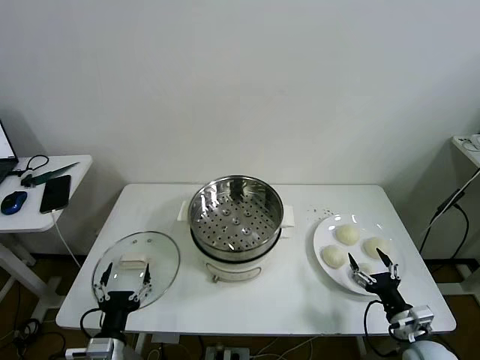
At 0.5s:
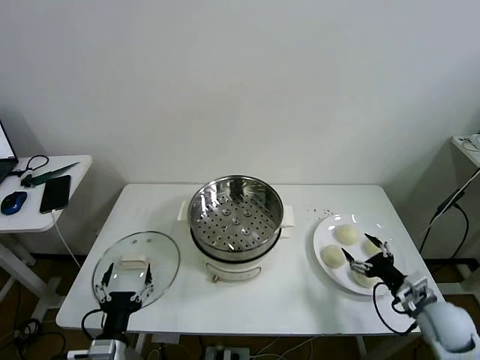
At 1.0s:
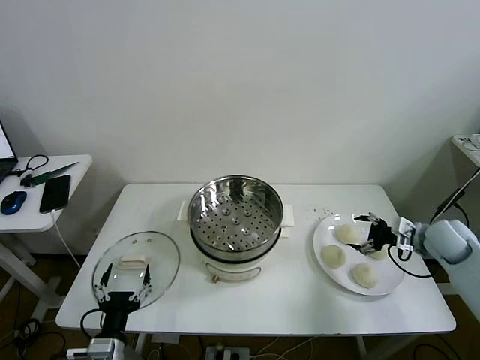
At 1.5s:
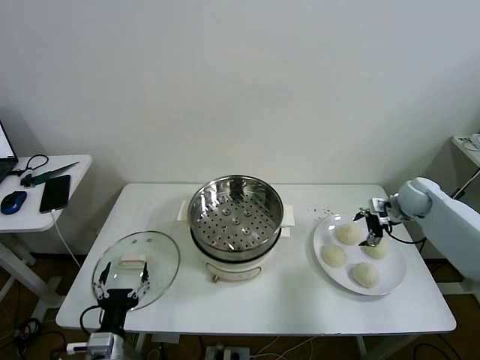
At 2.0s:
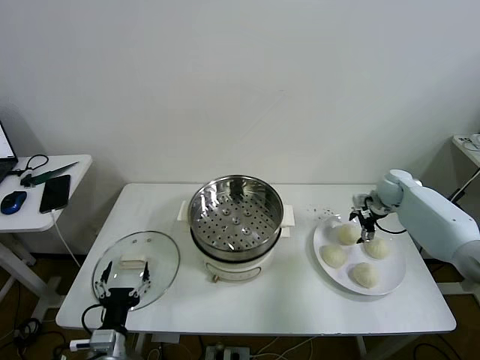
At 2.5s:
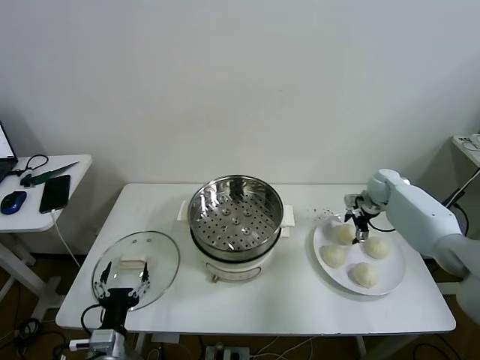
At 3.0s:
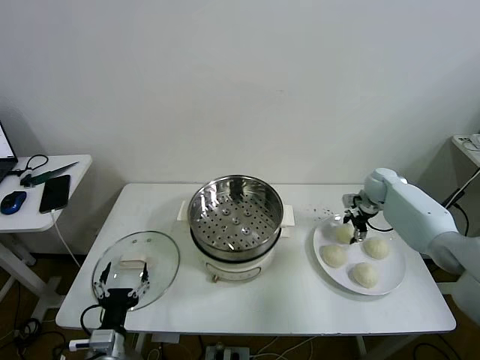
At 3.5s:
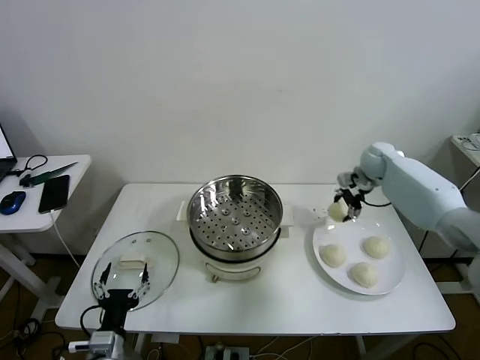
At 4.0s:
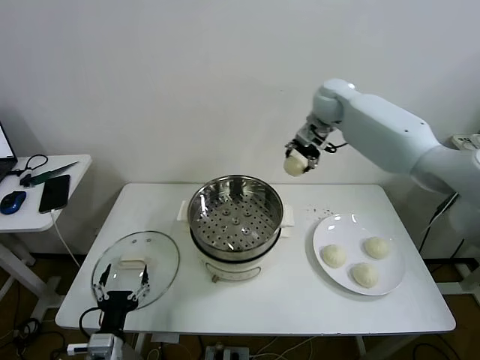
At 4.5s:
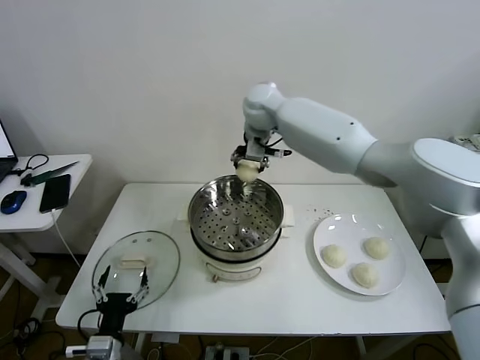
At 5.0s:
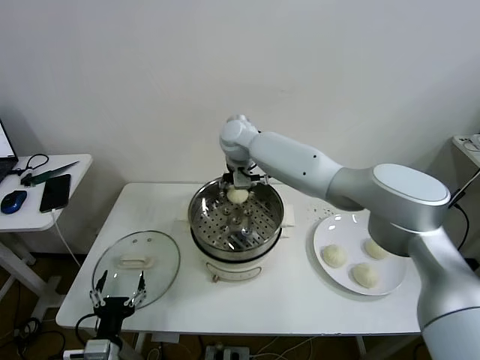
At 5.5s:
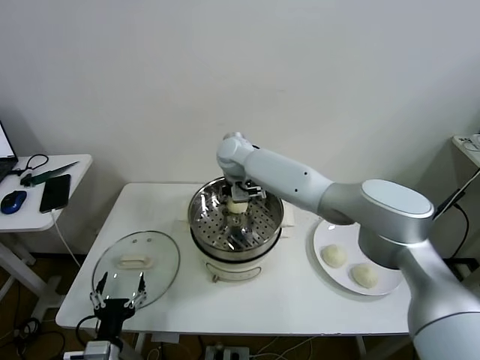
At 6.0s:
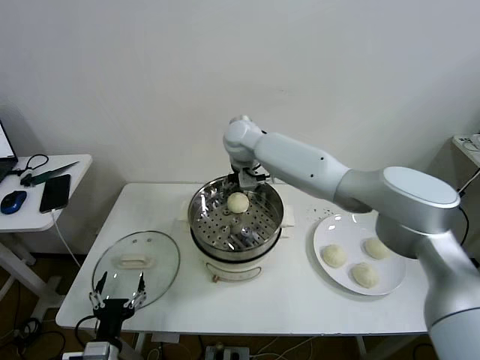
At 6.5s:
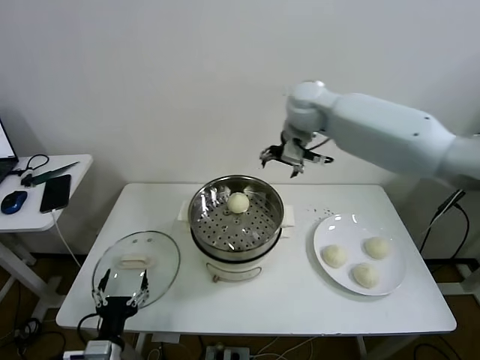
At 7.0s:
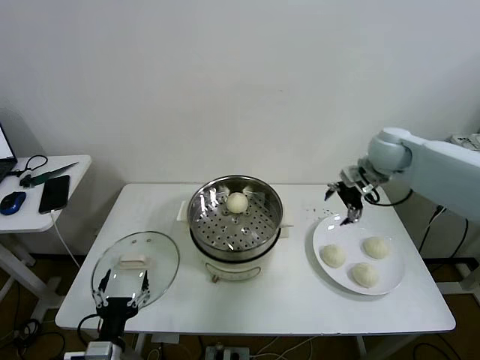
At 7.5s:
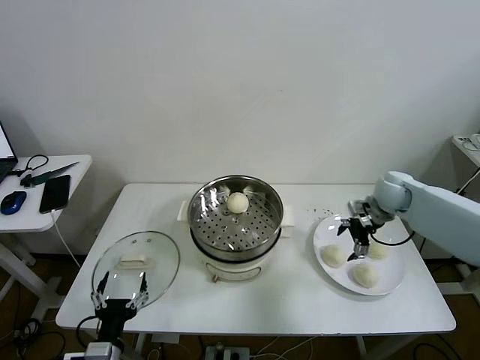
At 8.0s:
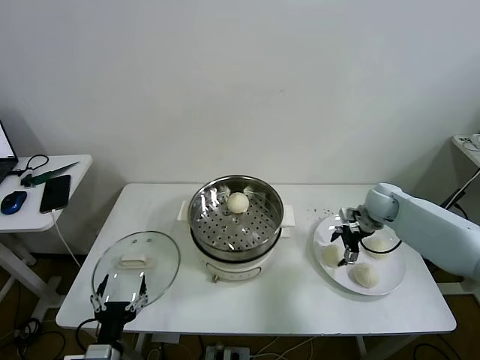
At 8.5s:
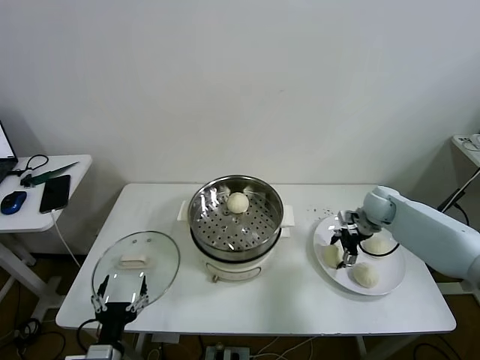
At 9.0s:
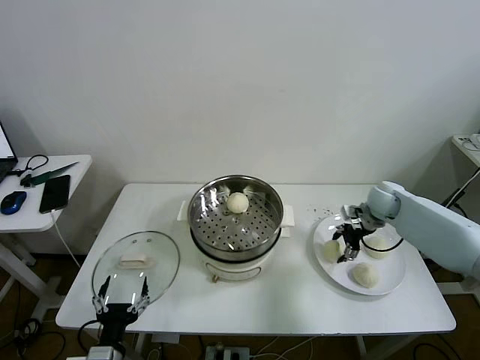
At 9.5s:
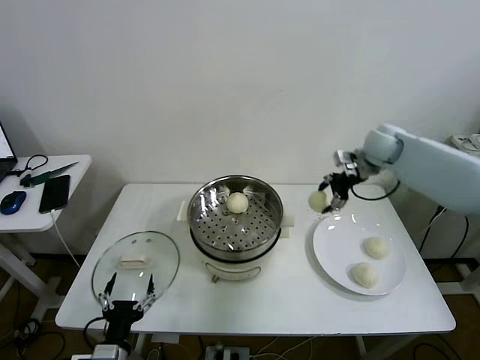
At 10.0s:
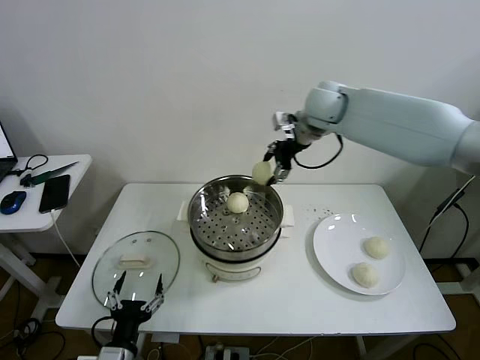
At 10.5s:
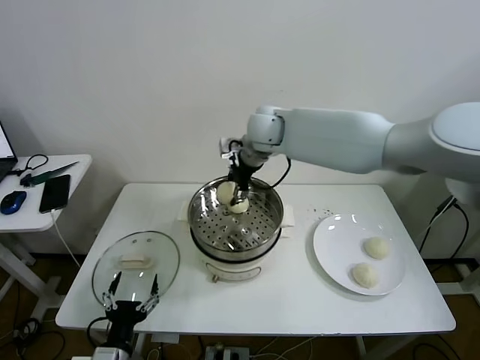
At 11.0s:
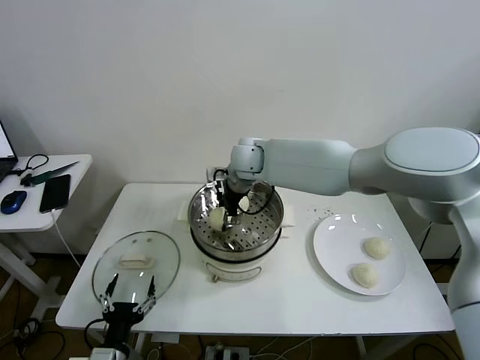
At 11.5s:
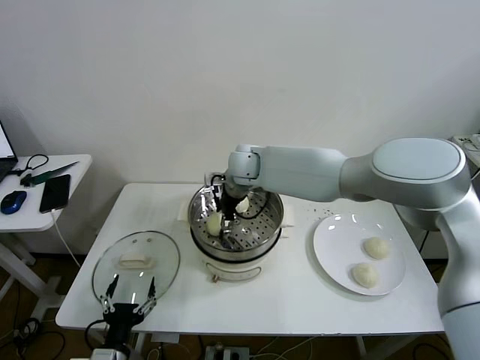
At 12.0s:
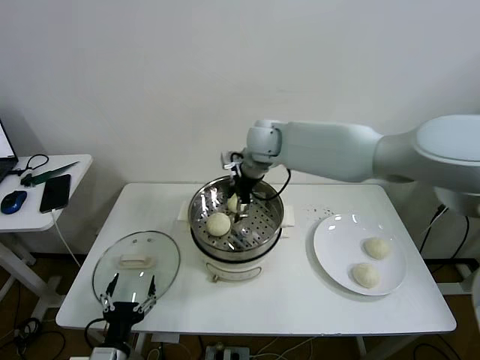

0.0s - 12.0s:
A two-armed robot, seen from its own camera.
Task of the whole recording: take steamed baozi put them in steamer then cover it.
Step, 0.0s - 2.5s: Grasp the baozi in the plate with right gripper.
Step, 3.5s - 5.5s: Place the baozi on the steamer with right gripper.
Step, 6.0s - 8.5s: Grasp the baozi in the plate with right gripper.
Step, 9.0s - 11.5s: Place the baozi on the steamer with right gripper.
2.0s - 4.0s: The right gripper moves to the left and upward, roughly 35 cm, and closes its fingers.
4.0s - 6.0s: The right gripper heads to the left and downward, covering about 15 cm, and opens its fingers.
6.0s - 8.0s: The right gripper travels to the right and downward by about 40 cm.
8.0s - 10.0s: The right gripper heads upward and to the left, covering approximately 35 cm, and closes up.
10.0s - 12.0s: The right gripper goes about 10 cm to the left and downward, and opens.

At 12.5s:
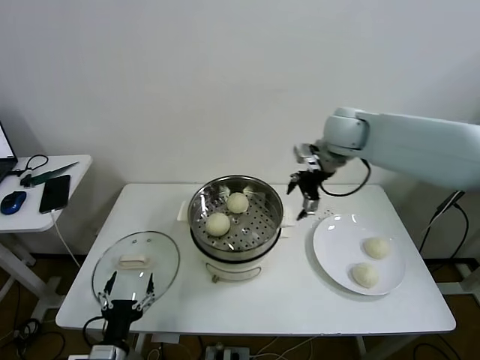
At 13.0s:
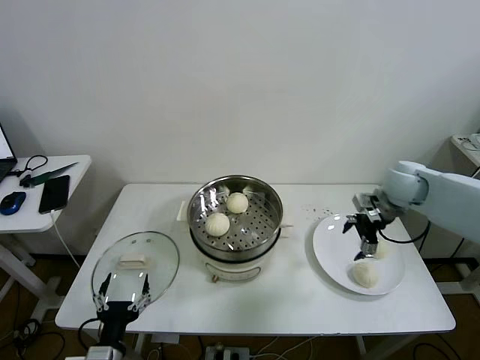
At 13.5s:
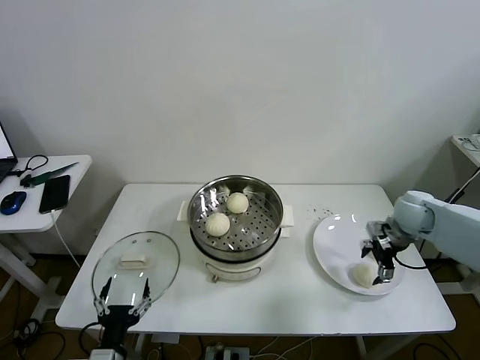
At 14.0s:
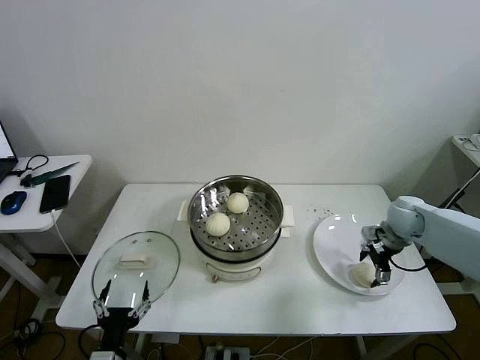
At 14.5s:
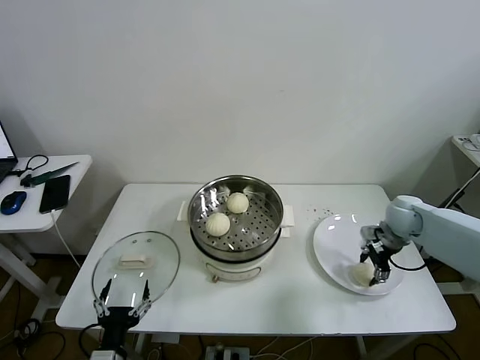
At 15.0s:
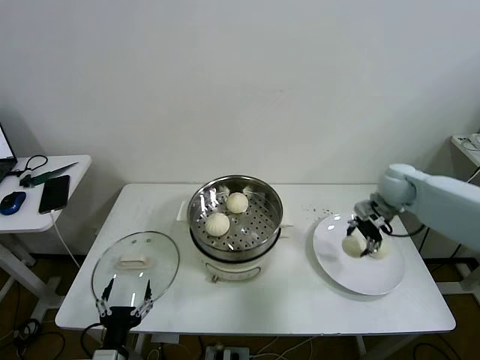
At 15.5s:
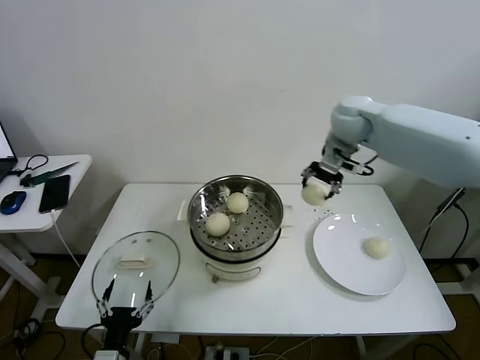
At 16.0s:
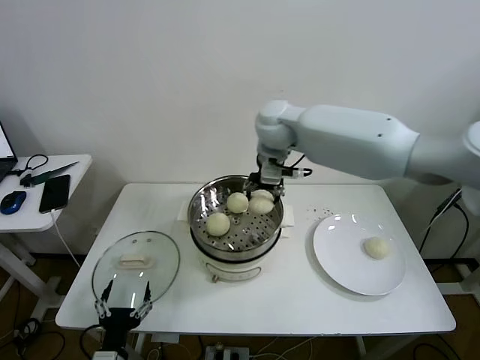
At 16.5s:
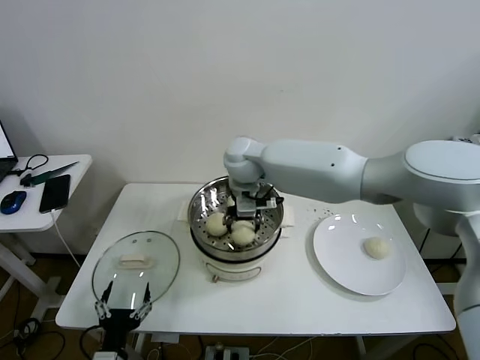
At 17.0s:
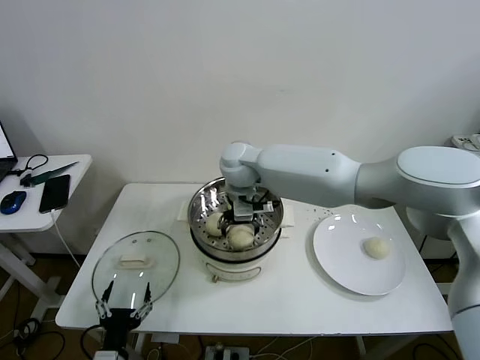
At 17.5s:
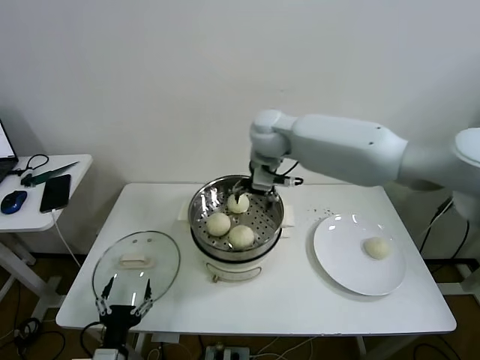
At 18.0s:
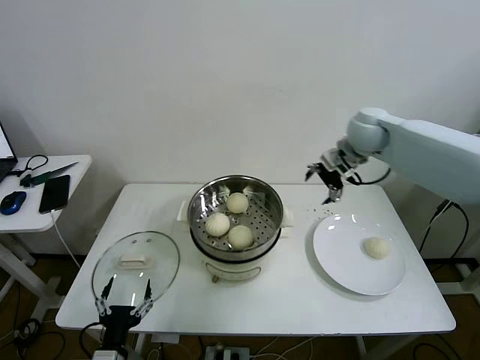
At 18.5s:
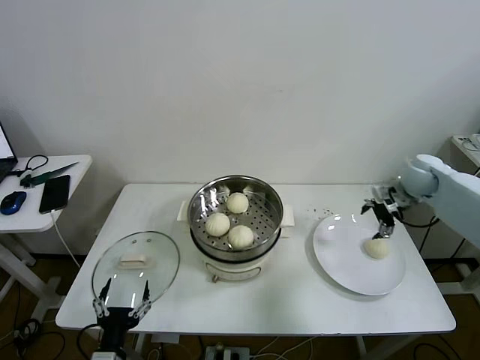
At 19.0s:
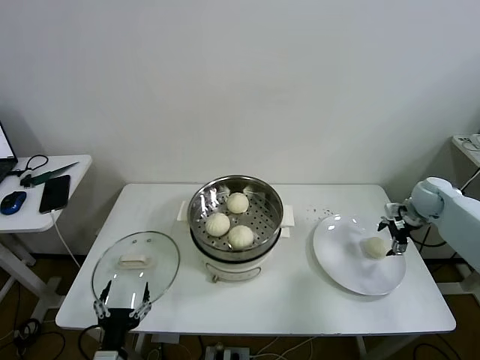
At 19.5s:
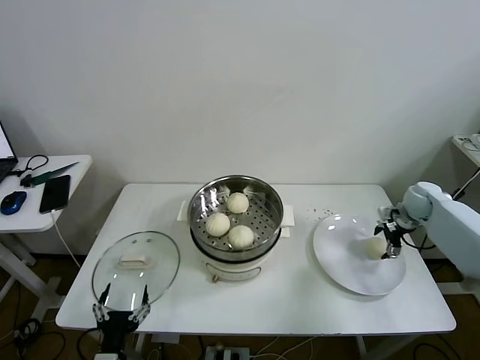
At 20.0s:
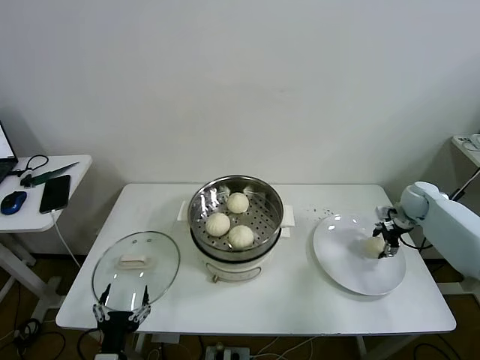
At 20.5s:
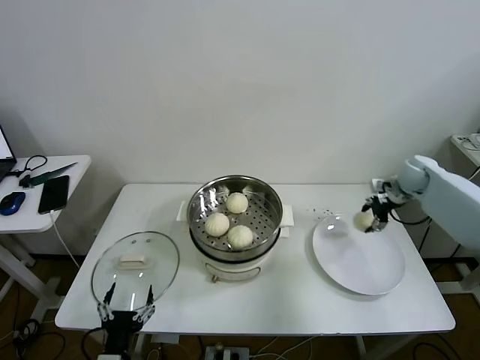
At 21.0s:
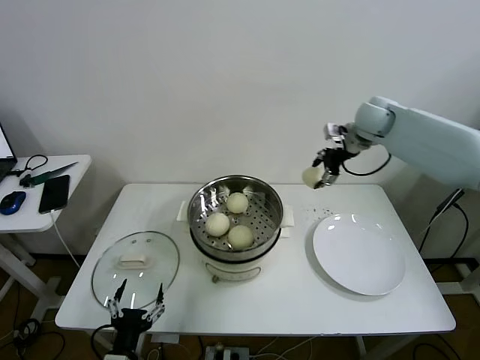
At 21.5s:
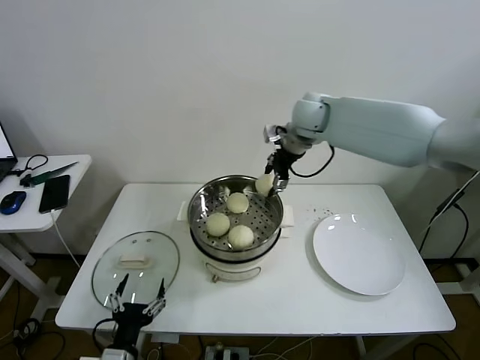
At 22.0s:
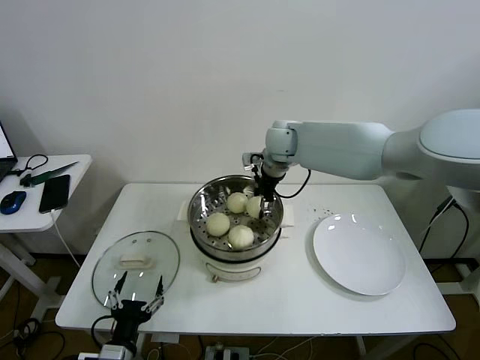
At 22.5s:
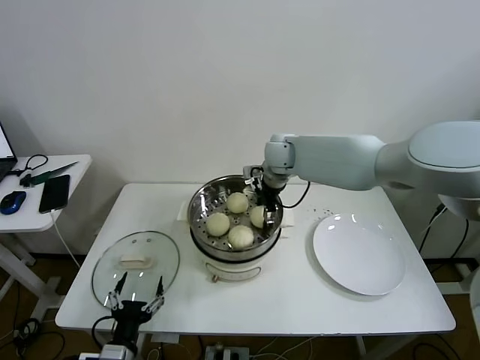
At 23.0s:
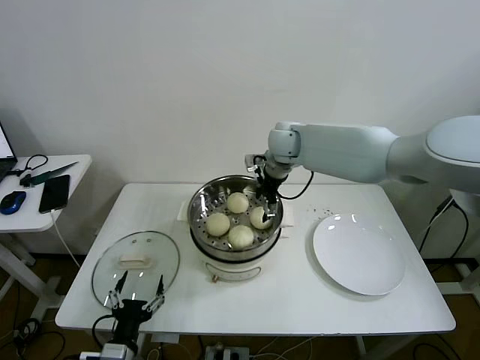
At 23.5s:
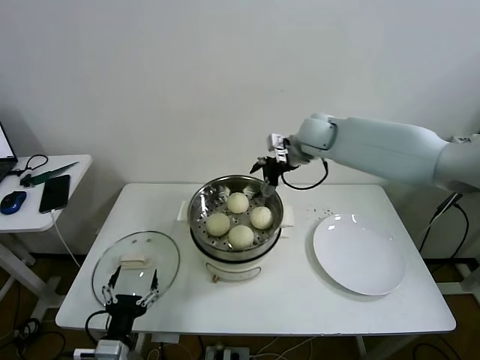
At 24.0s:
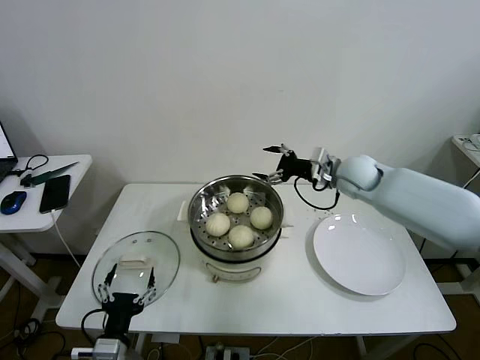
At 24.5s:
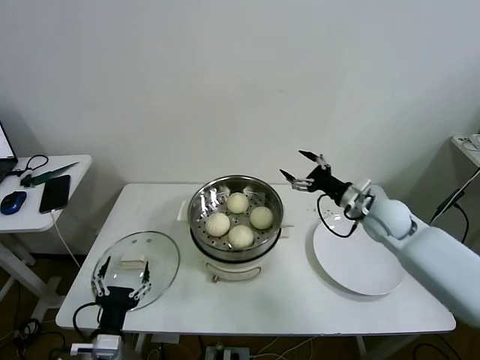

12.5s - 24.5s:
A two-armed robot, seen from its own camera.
Task of the whole recording: take steamed baozi put them in steamer then cover it.
Step, 12.5s - 14.5s: Grasp the baozi in the plate with right gripper.
Step, 15.0s - 17.0s: Place the baozi on the steamer with right gripper.
Step, 17.5s - 20.0s: Grasp the baozi in the plate with right gripper.
Step, 20.5s - 22.5s: Place the baozi on the steamer with right gripper.
12.5s - 14.5s: The right gripper is displaced downward and to the right by approximately 25 cm, and closes its fingers.
14.5s - 16.5s: The right gripper goes roughly 40 cm to the left.
16.5s - 18.5s: The right gripper is displaced to the right by approximately 40 cm, and opens up.
18.5s - 20.5s: The right gripper travels downward and back again, some 10 cm each way, and closes up.
20.5s - 22.5s: The right gripper moves to the left, some 35 cm.
22.5s - 24.5s: The right gripper shifts approximately 30 cm to the right, backward and downward, and opens up.

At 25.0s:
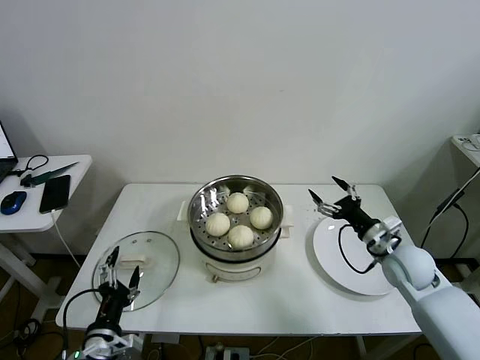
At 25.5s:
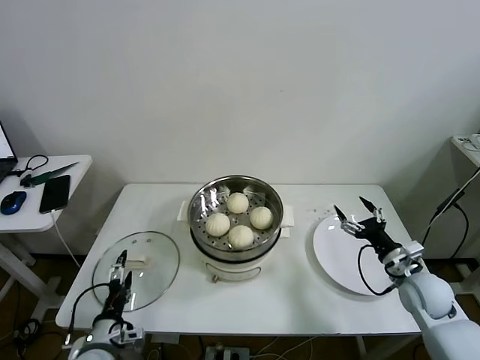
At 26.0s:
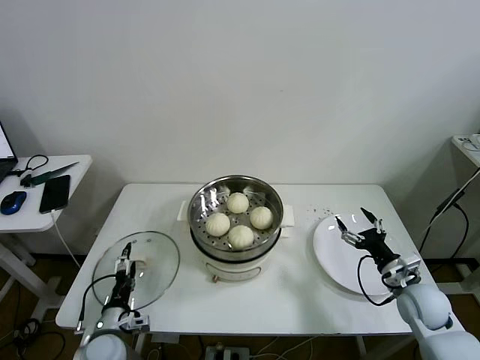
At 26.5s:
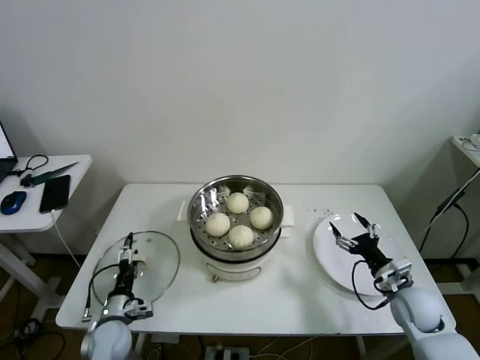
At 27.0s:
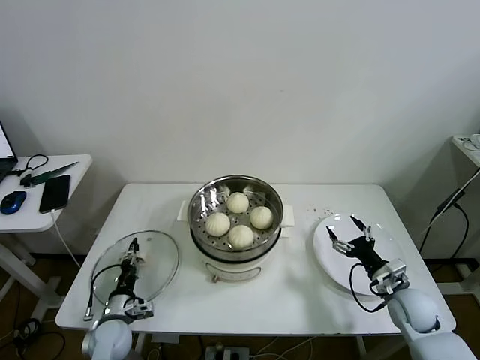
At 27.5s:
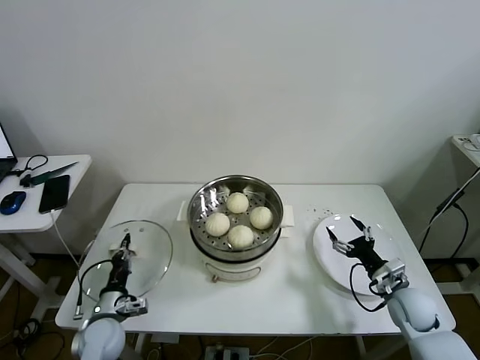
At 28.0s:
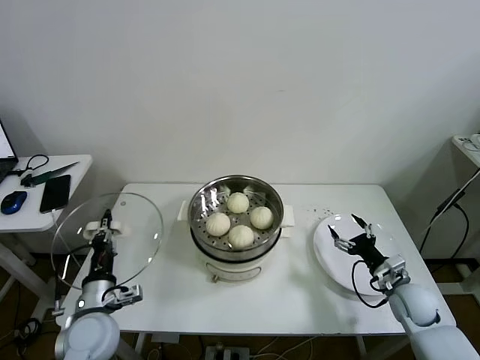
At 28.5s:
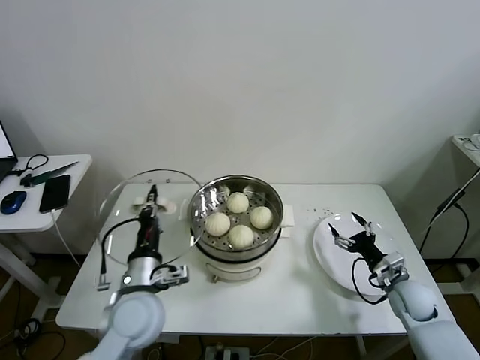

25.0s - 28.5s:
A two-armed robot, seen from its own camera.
Task of the whole recording: take steamed baozi put them in steamer then cover it.
Step, 25.0s - 27.0s: Grasp the pot lid with left gripper.
25.0s - 27.0s: The right gripper shifts about 10 cm downward and backward, while the left gripper travels downward and forward by about 20 cm, and closes its fingers.
27.0s - 28.5s: The left gripper is displaced upward and to the right by roughly 25 cm, and closes.
